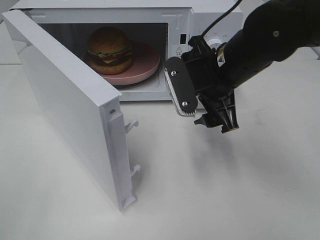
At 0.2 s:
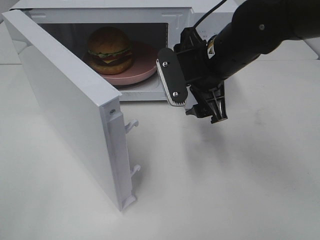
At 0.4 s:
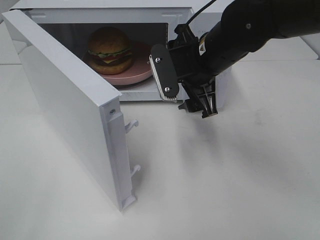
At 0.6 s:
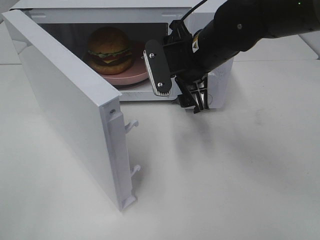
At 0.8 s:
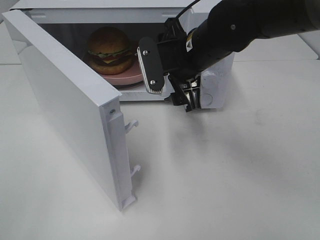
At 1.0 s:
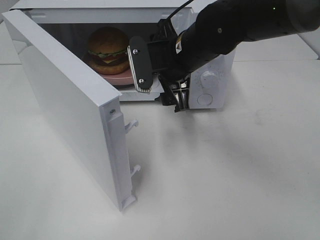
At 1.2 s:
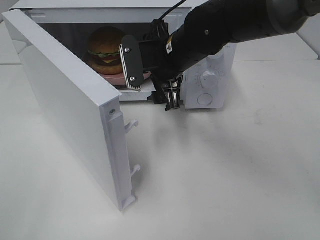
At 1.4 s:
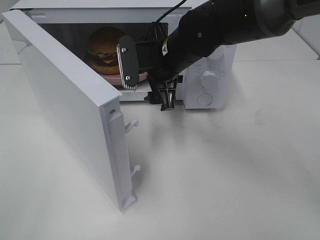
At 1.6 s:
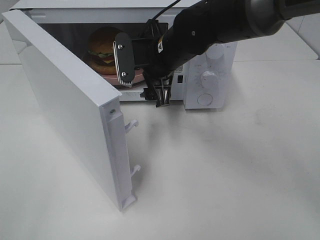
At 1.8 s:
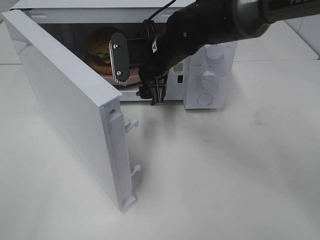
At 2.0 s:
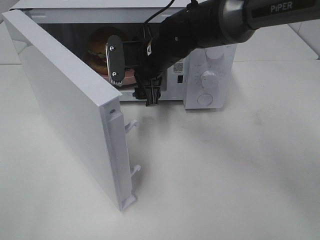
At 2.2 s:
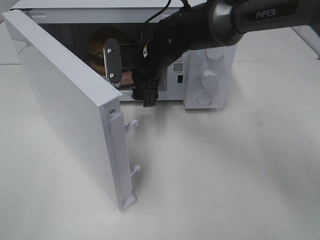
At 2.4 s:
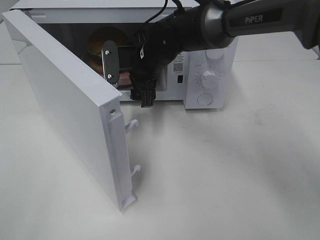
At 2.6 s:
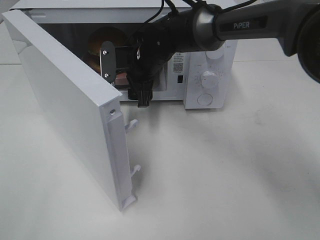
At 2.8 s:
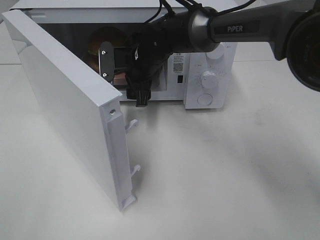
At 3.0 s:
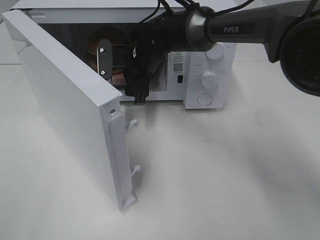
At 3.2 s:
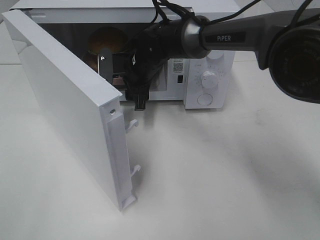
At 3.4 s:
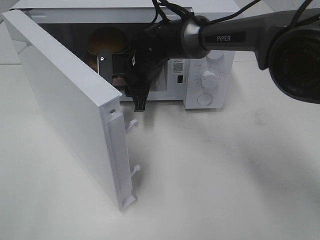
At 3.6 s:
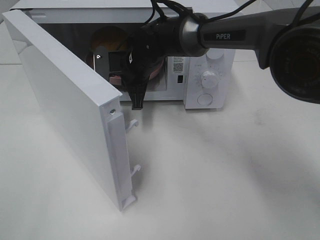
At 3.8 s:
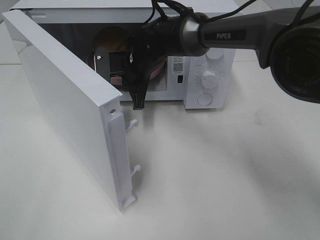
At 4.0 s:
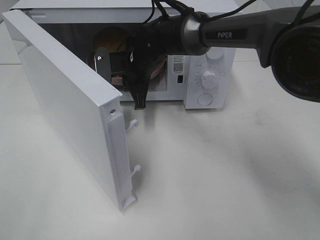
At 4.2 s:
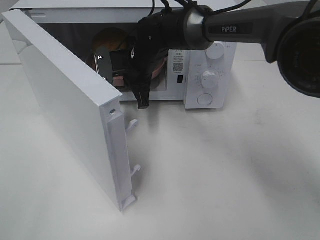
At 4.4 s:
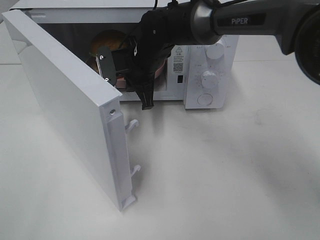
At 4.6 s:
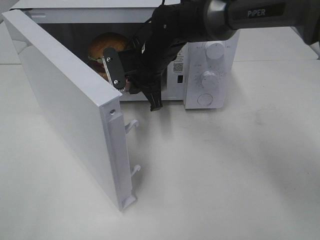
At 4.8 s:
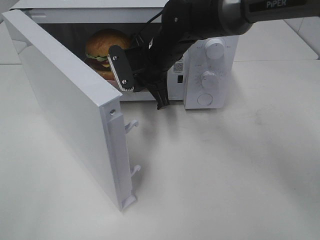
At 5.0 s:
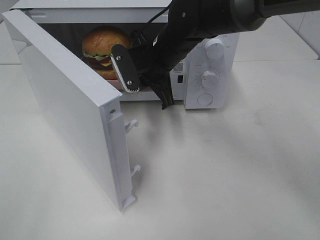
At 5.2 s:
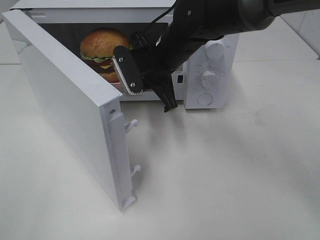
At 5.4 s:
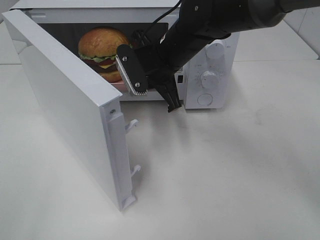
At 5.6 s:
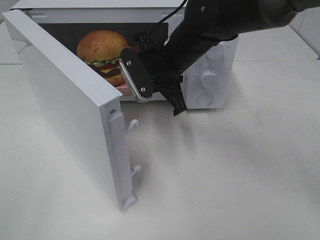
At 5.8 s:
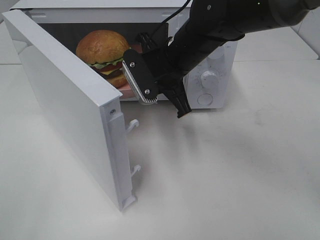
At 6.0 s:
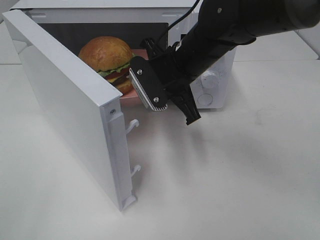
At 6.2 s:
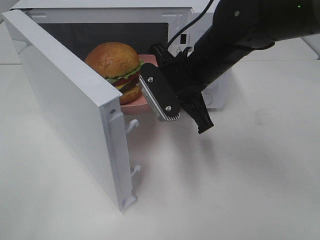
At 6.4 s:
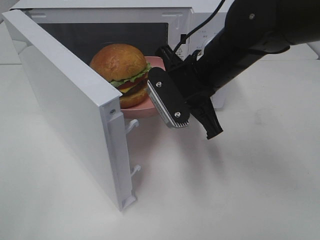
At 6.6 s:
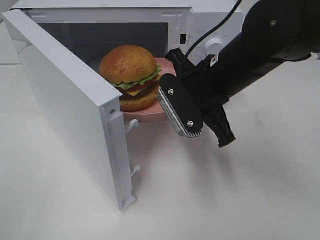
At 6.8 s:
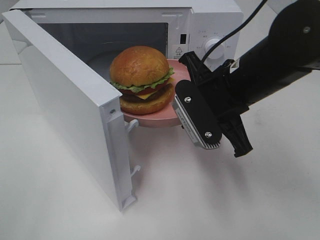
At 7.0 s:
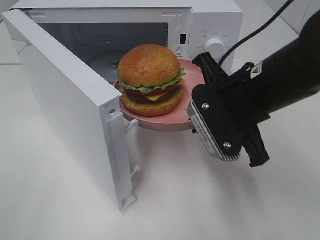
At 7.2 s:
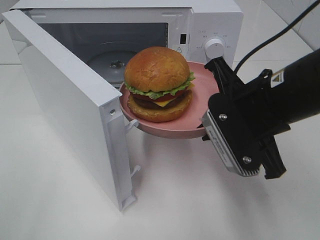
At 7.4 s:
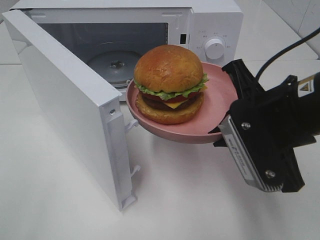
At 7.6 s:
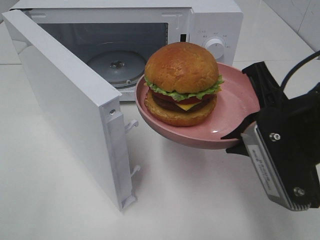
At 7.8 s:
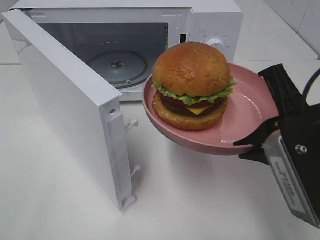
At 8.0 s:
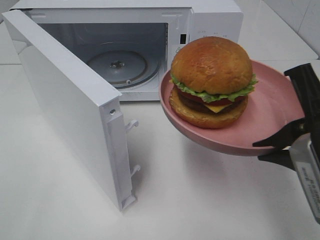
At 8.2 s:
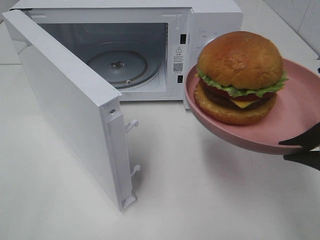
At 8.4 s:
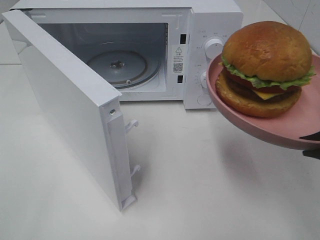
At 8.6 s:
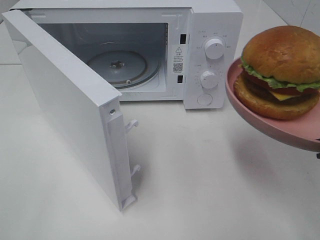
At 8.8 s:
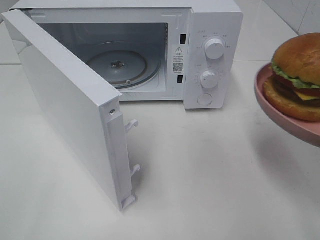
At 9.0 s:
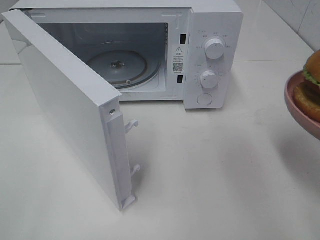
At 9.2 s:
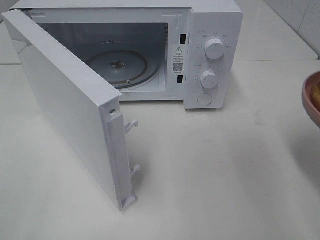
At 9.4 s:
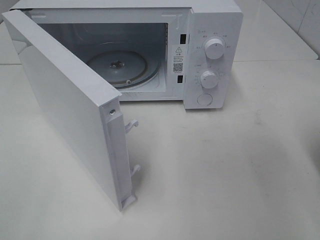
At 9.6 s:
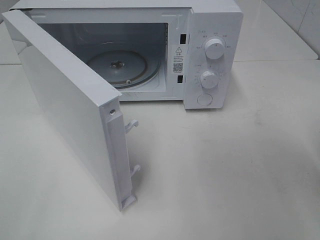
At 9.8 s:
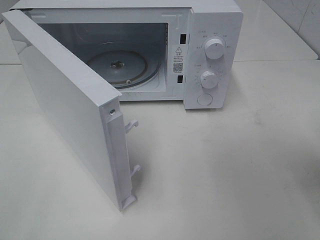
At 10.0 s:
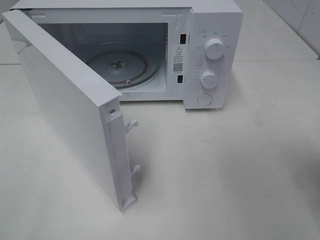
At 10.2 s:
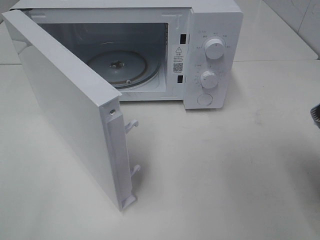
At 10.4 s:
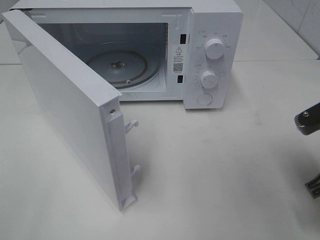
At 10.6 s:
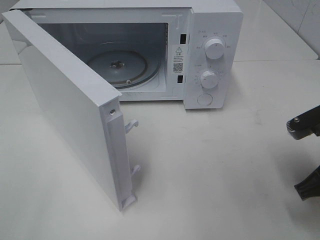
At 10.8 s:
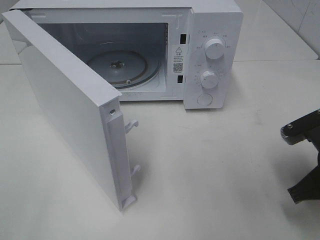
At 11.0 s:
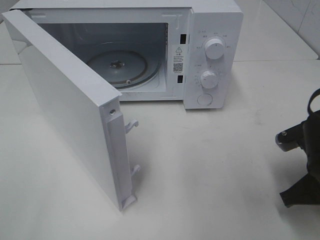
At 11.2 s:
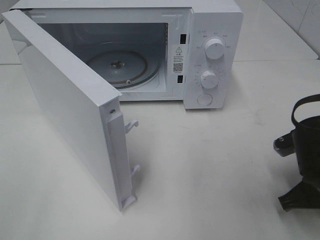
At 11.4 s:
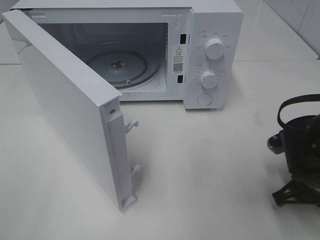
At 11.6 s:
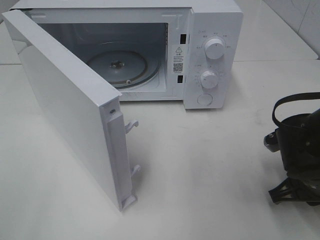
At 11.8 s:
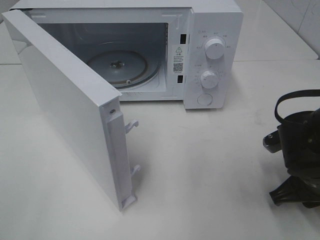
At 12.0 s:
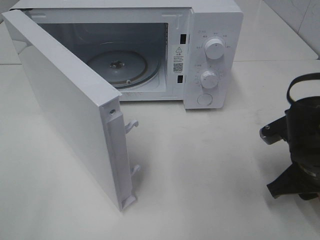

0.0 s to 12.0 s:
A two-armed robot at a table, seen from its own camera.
Task of the whole recording: Heat the burger.
Step, 0.0 to 3.6 s: Right hand: grab the plate with the hamburger.
Step, 3.8 to 11.8 s: Right hand: place the plate on the table.
0.0 to 1.6 s: The right gripper shifts approximately 10 cm to the left and forward.
1.6 to 3.0 s: The right gripper goes roughly 5 cm forward.
3.0 to 4.4 s: The right gripper closes up.
4.4 to 6.0 s: The right gripper heads backward and to the right, covering about 10 cm.
6.0 to 7.6 s: The right gripper moves backward and to the right, some 20 cm.
7.6 to 9.0 s: The right gripper moves to the right and backward, approximately 10 cm.
9.0 to 10.4 s: The right gripper goes roughly 10 cm downward and forward.
10.4 to 12.0 s: The right gripper travels downward by roughly 5 cm, and opens up.

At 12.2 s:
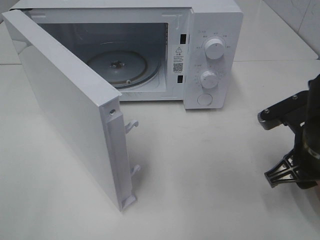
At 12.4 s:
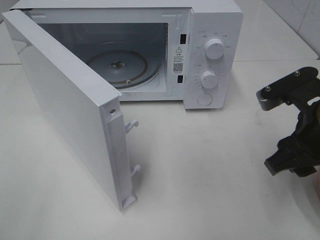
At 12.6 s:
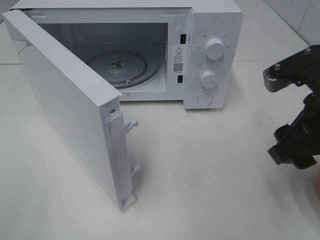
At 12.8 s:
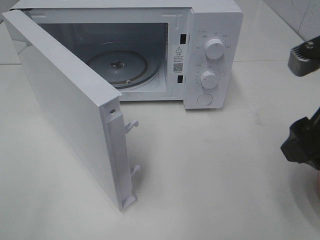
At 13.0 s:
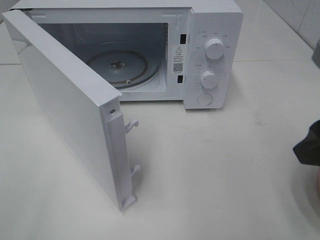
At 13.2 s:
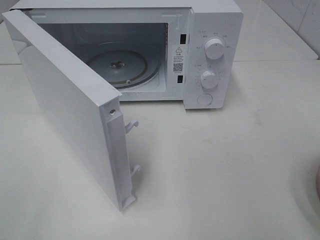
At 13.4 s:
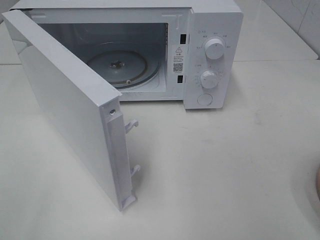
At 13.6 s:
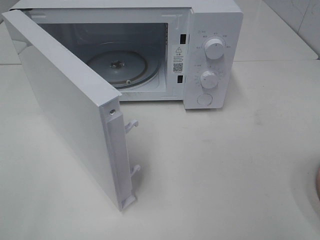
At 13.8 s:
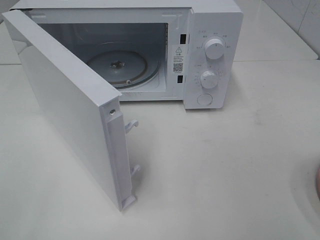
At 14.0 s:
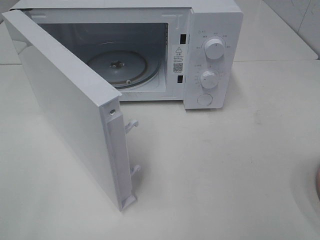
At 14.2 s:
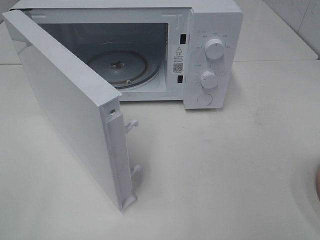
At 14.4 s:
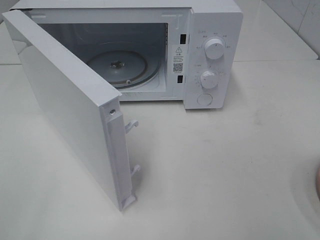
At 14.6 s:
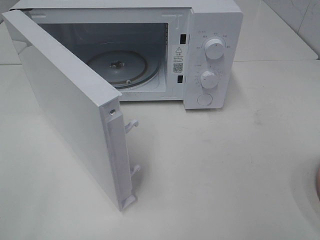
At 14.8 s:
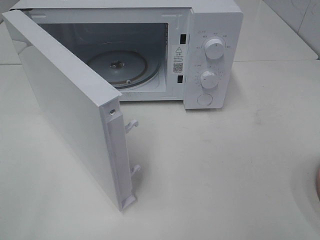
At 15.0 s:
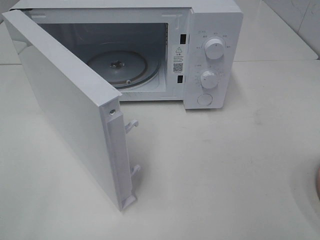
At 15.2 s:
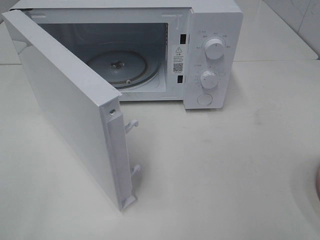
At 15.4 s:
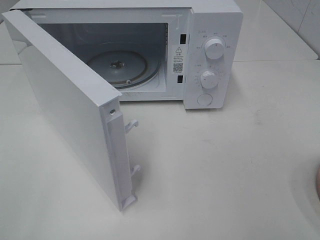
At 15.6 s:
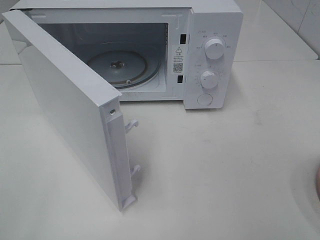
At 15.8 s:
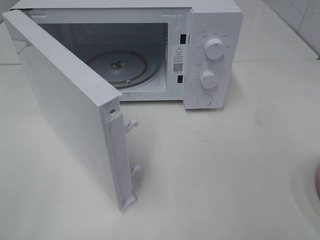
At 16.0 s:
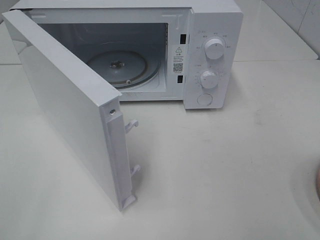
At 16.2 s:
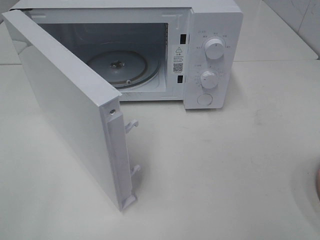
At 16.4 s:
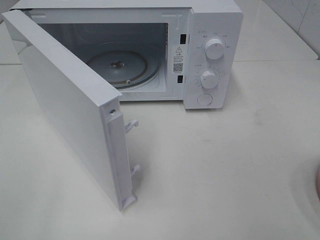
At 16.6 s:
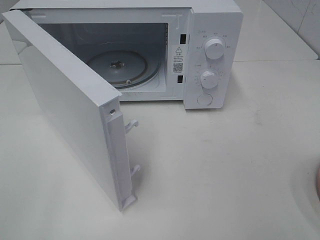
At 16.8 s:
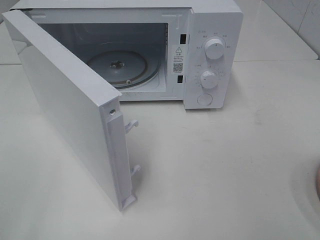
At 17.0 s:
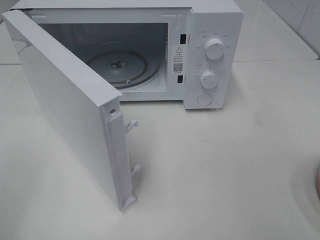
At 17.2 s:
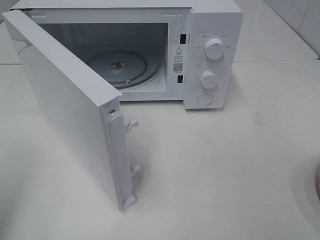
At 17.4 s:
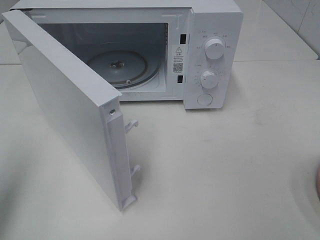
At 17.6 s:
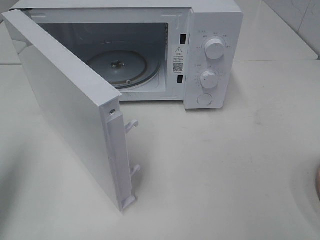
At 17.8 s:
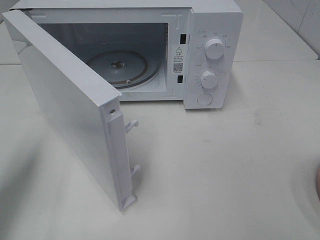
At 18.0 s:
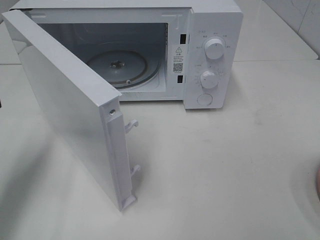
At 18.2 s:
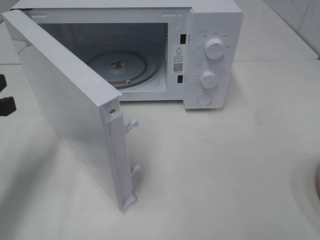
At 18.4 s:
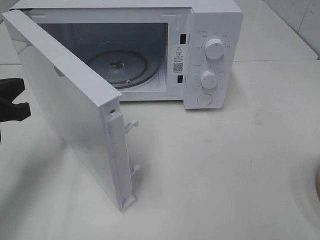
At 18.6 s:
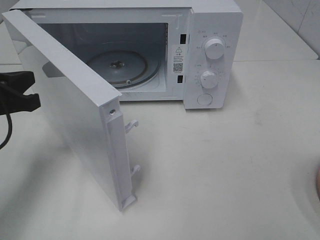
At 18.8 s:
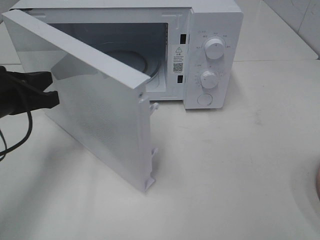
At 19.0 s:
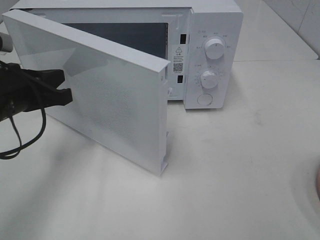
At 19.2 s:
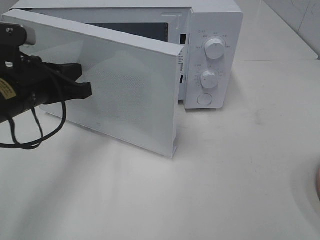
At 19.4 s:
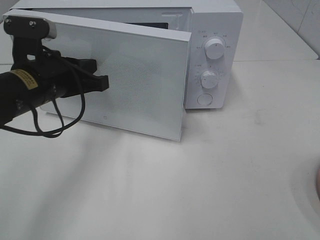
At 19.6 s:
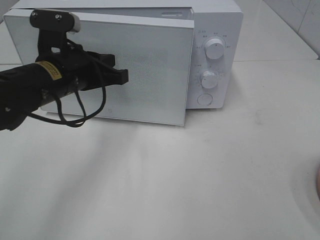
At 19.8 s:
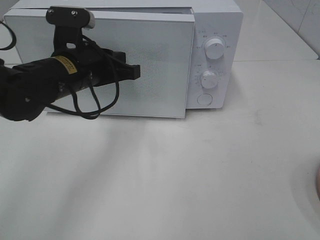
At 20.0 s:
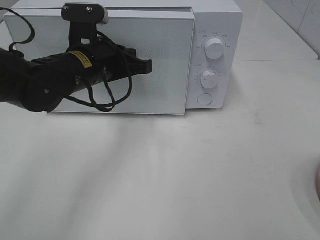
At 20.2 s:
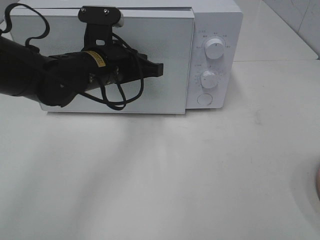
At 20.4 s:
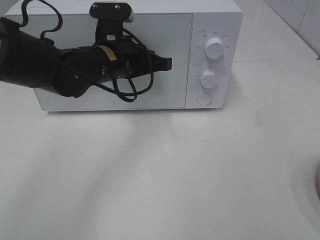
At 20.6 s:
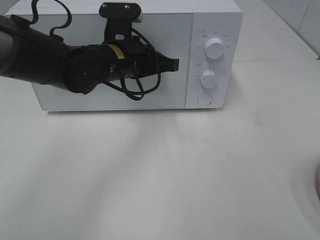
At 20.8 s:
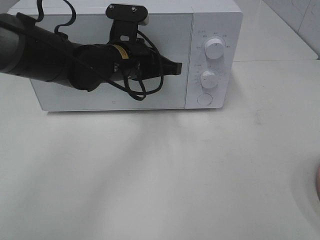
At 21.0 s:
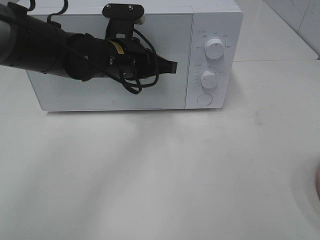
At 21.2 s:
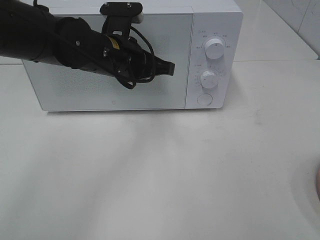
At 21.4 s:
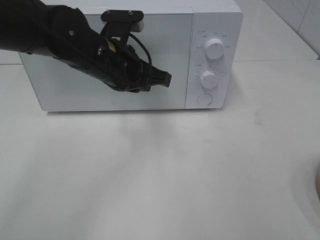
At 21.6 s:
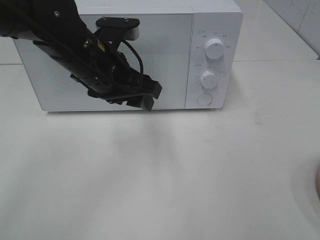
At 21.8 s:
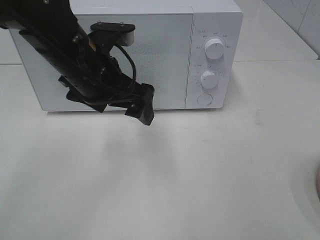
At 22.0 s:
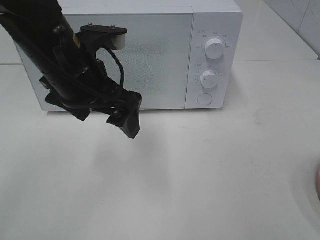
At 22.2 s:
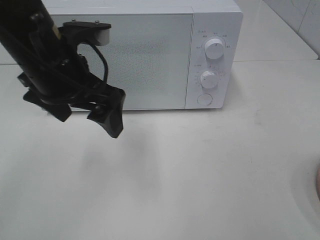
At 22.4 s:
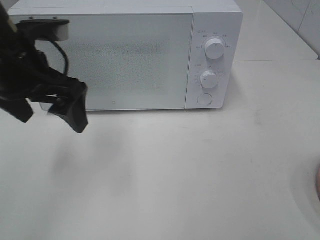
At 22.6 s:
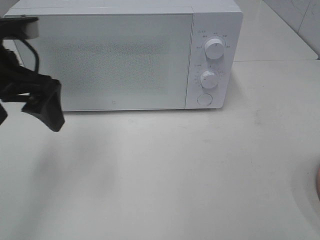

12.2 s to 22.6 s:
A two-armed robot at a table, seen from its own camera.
Task of the whole recording: Heat the burger.
Step, 12.2 to 21.0 s: Left hand: close the microwave door.
12.2 to 13.6 s: The right gripper travels upward and backward by roughly 20 cm.
15.2 to 16.6 s: Both grippers stay about where they are.
16.6 to 18.2 s: The left gripper heads forward and downward, covering roughly 25 cm, and closes.
18.2 to 19.6 s: The left gripper goes some 15 cm to the right and forward.
19.6 to 21.2 s: The left gripper travels to the right by approximately 5 cm.
21.2 to 22.6 s: The left gripper is displaced to the left, backward and upward by some 20 cm, and opens up.
